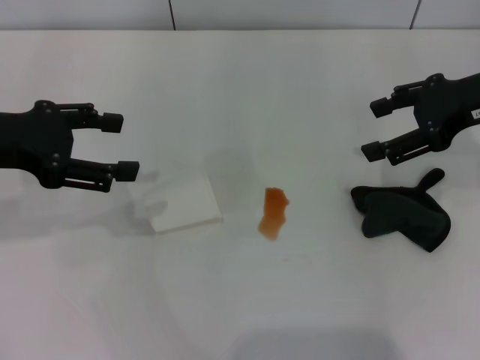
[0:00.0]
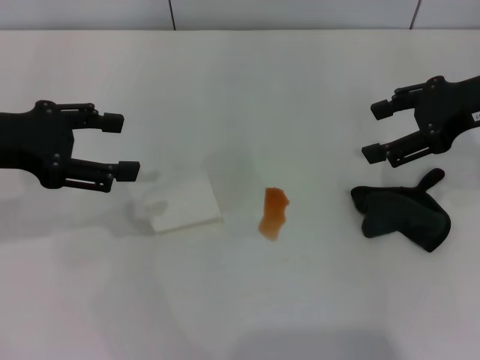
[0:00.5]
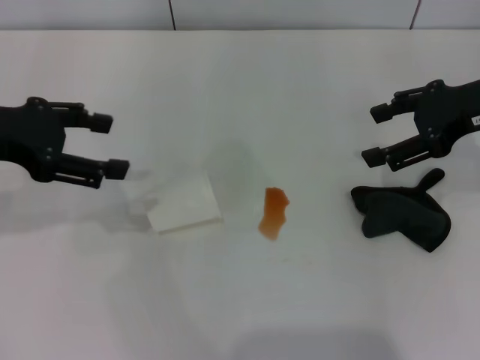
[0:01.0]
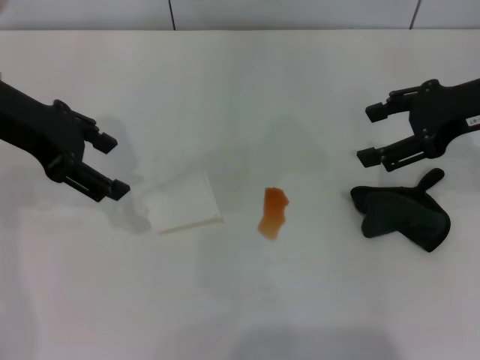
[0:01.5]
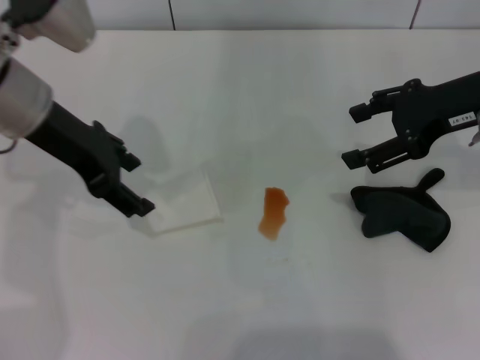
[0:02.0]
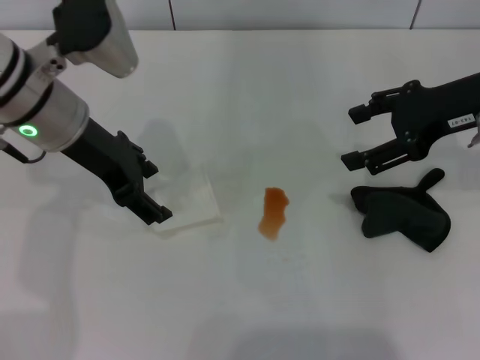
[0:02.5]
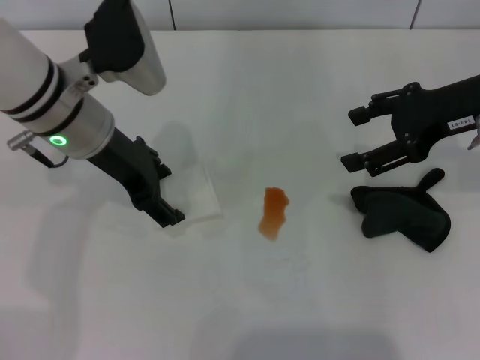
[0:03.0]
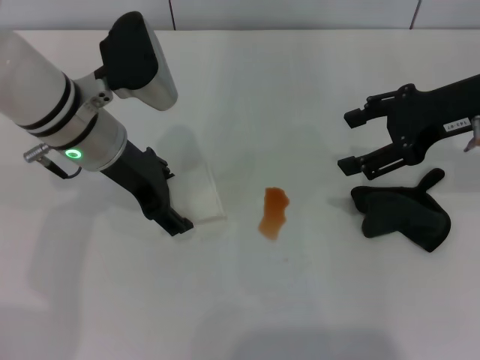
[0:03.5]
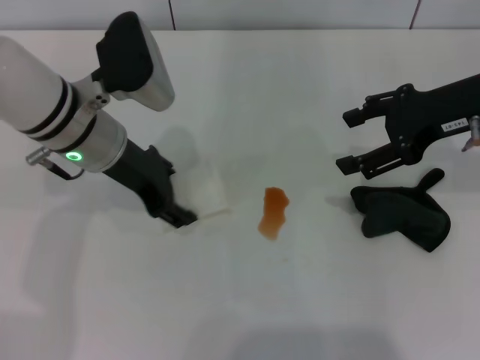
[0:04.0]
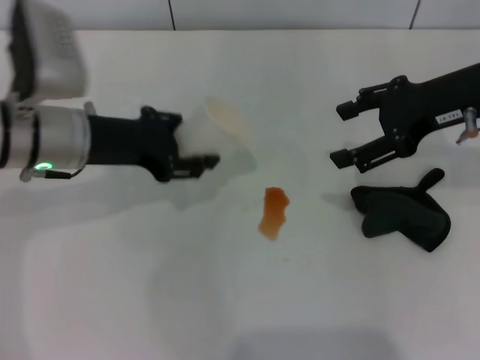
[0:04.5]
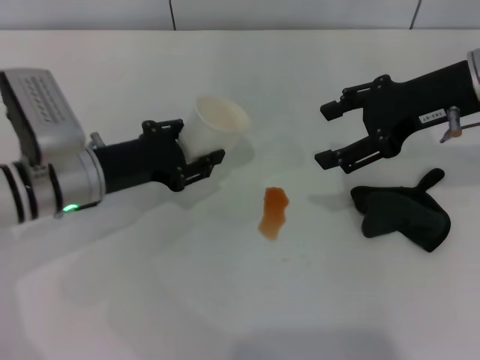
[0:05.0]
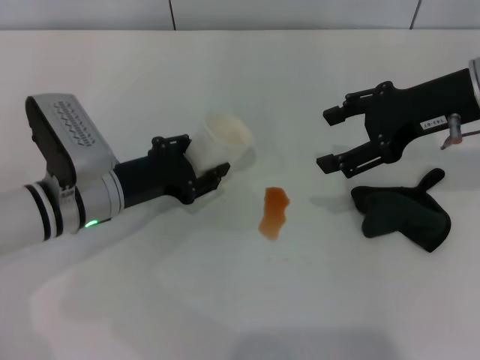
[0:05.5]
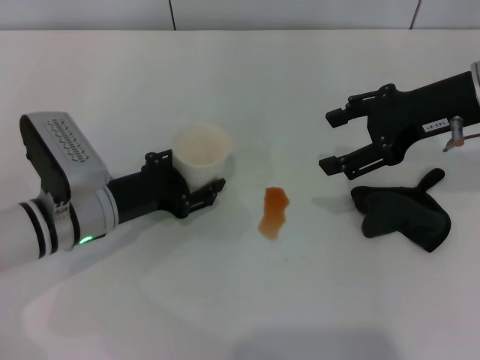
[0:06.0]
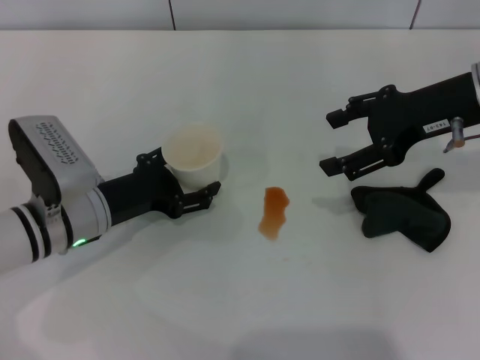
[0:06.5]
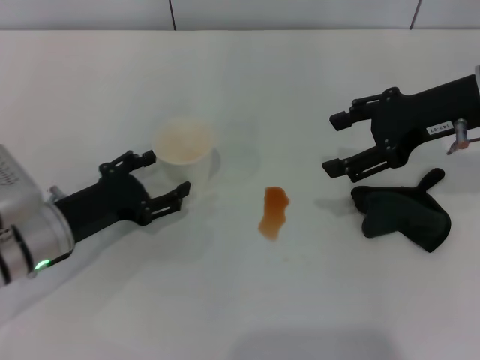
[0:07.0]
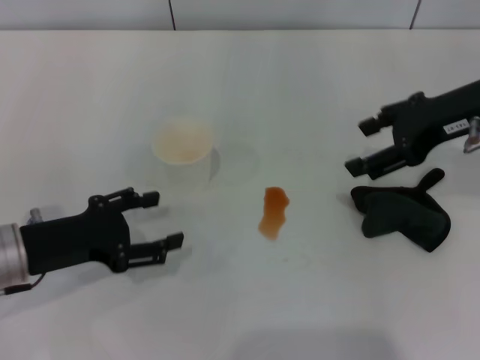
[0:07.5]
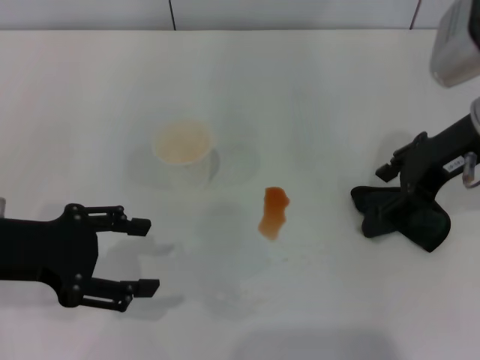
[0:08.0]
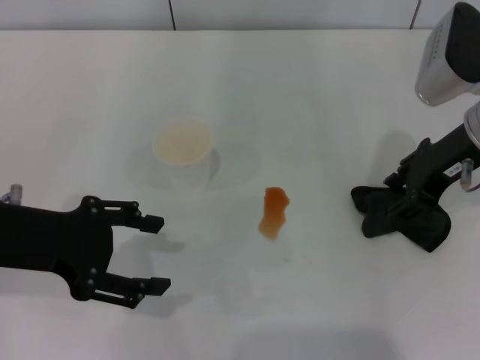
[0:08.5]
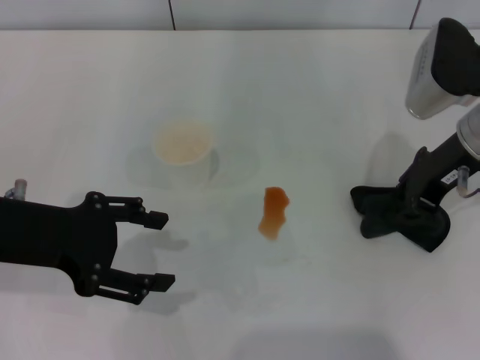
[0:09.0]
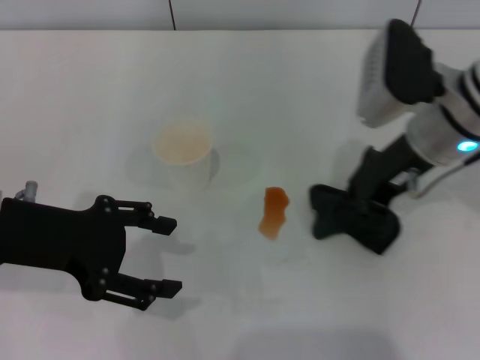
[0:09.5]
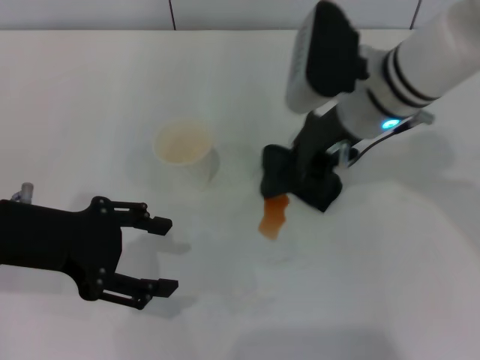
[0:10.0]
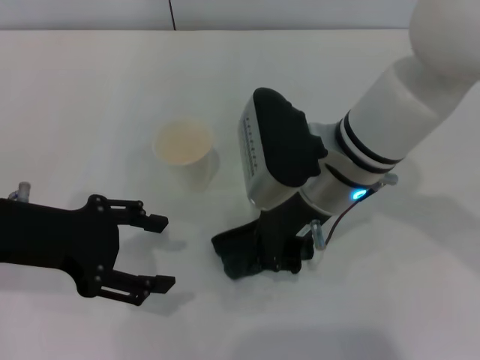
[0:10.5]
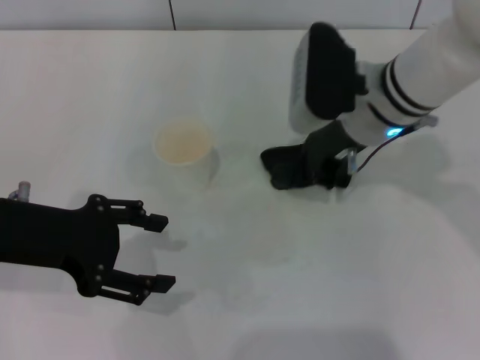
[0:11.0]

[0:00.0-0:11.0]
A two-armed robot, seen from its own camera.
Step, 0:00.0 to 0:03.5: Grasp the paper cup with the left gripper.
Step, 0:04.0 to 0:07.0: Stand the paper cup upright with the left gripper.
Step, 0:07.5 to 0:09.0: Grasp the rag with the right gripper.
0:00.0 to 0:02.0: The left gripper goes approximately 10 cm to the right and forward.
0:02.0 to 0:03.5: The left gripper moves downward, about 5 cm.
0:03.5 to 0:05.5: The left gripper moves downward, approximately 10 cm, and closes up.
0:05.5 to 0:07.5: The left gripper heads to the left and backward, covering about 10 cm, and opens.
0:07.5 to 0:09.0: The left gripper goes approximately 10 cm upward. The right gripper closes.
0:09.0 to 0:11.0: The right gripper goes roughly 10 cm to the left.

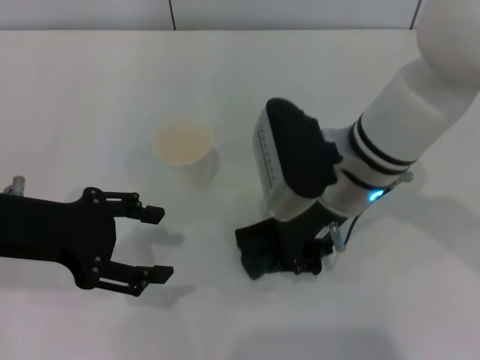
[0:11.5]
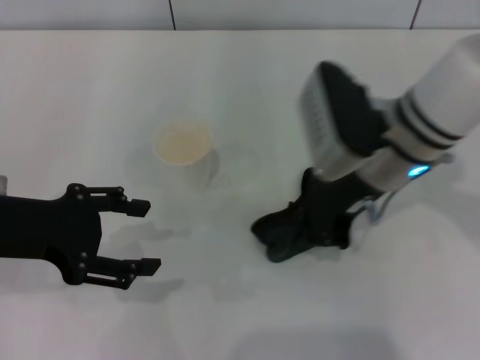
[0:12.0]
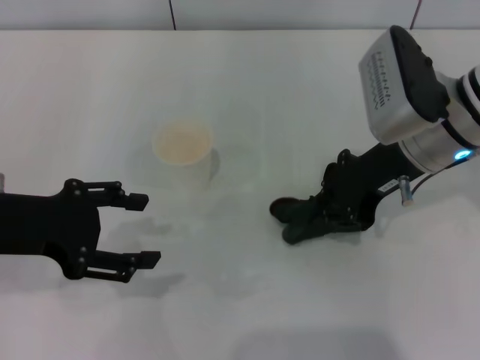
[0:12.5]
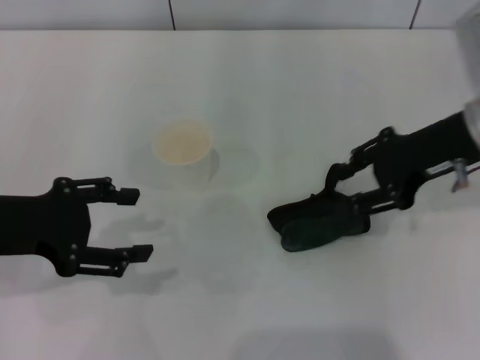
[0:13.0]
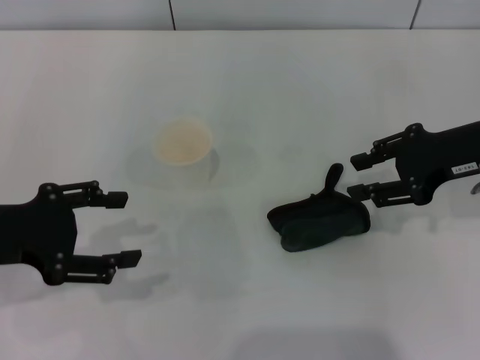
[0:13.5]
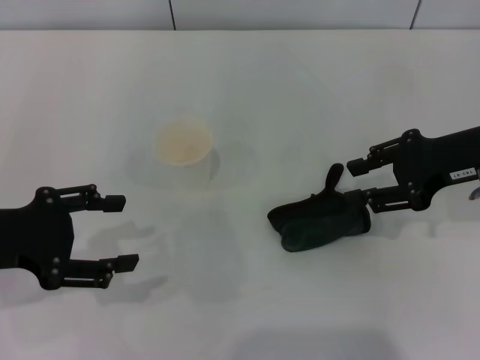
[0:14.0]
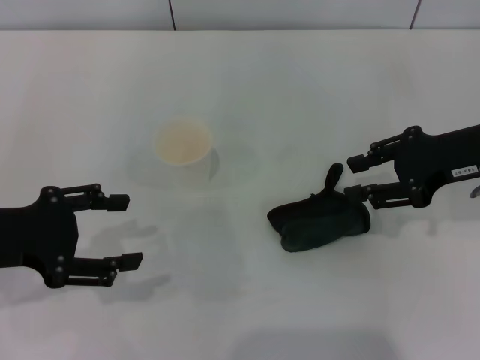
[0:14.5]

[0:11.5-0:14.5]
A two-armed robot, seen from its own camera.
Step, 0:12.5 to 0:13.5: Place the rag on the table with the right gripper.
0:11.5 to 0:13.0: The right gripper shifts some 15 cm to the right, and opens.
0:13.0 to 0:14.5: The grippers make only small movements.
